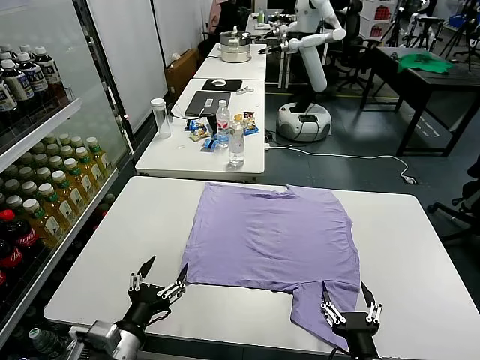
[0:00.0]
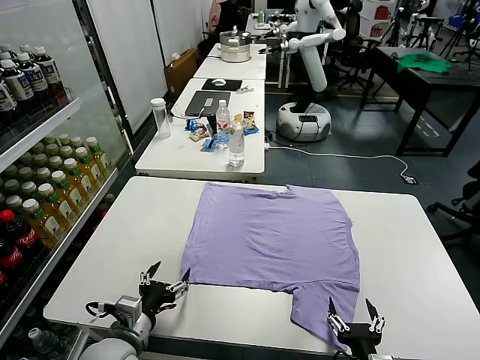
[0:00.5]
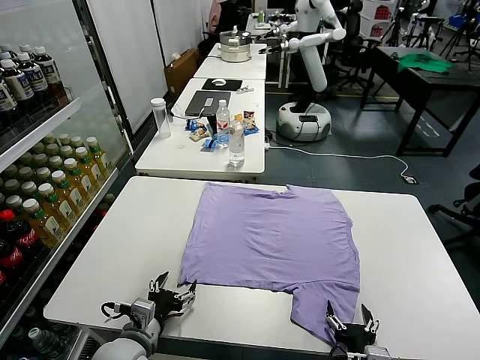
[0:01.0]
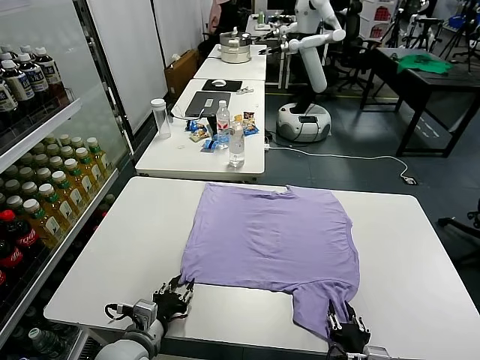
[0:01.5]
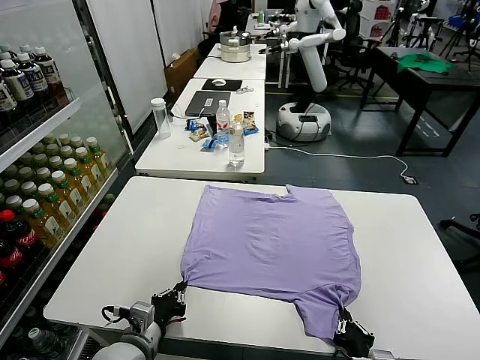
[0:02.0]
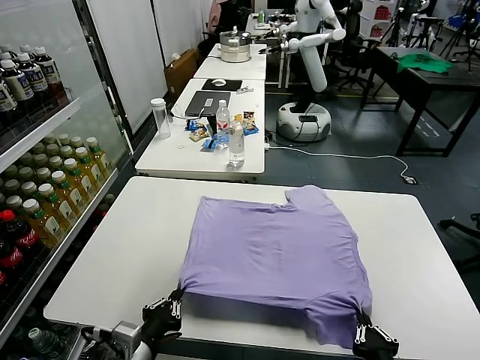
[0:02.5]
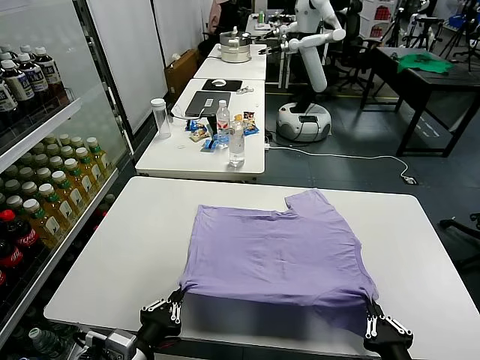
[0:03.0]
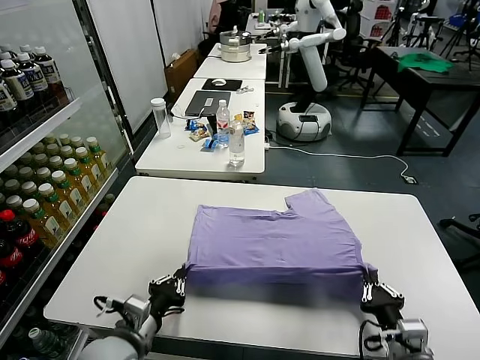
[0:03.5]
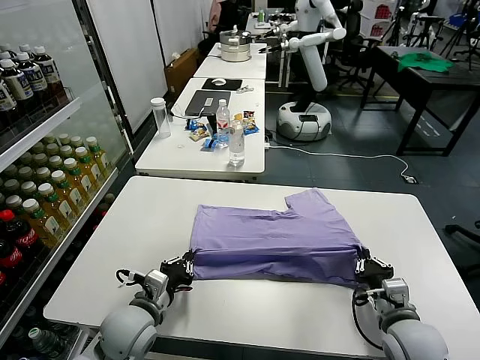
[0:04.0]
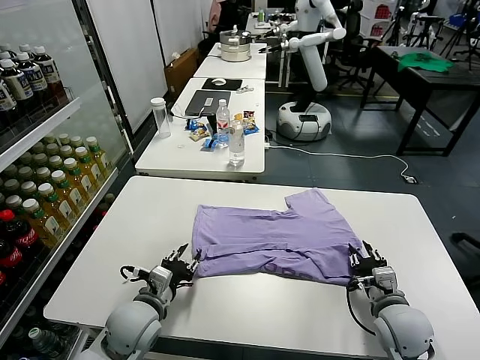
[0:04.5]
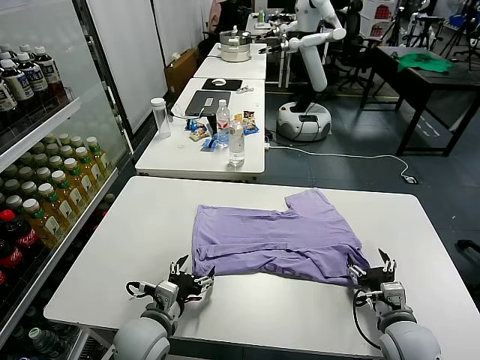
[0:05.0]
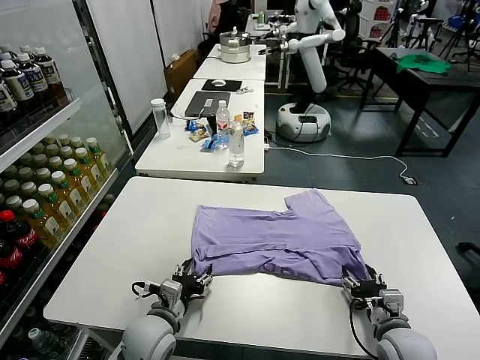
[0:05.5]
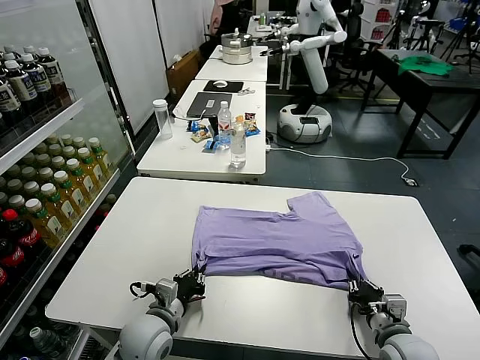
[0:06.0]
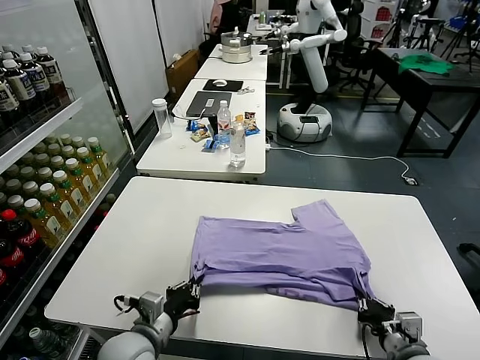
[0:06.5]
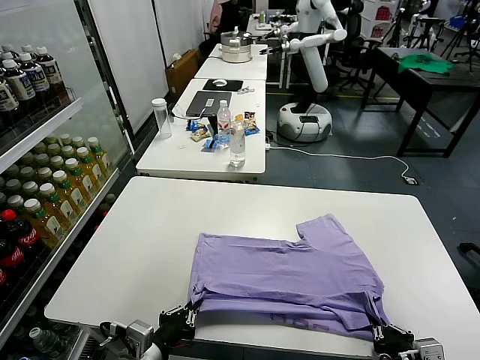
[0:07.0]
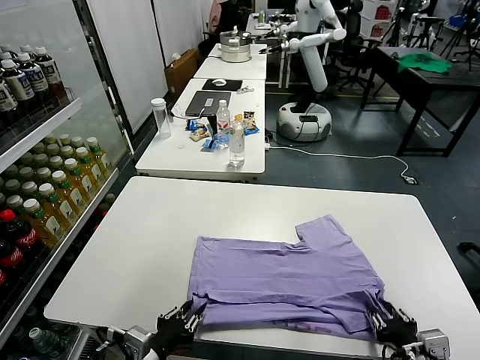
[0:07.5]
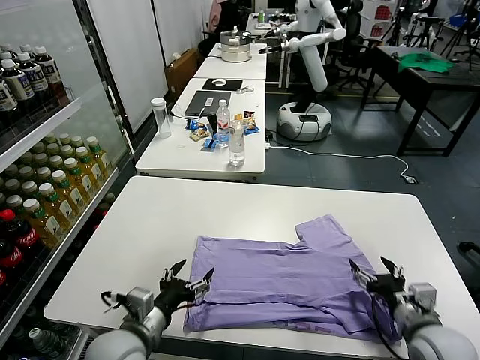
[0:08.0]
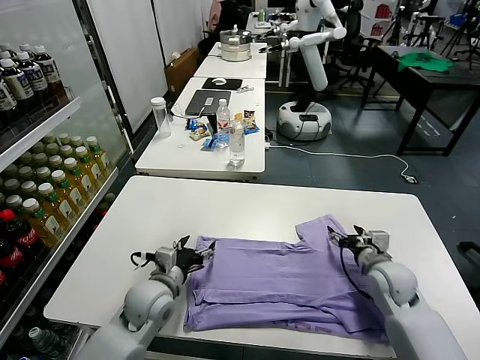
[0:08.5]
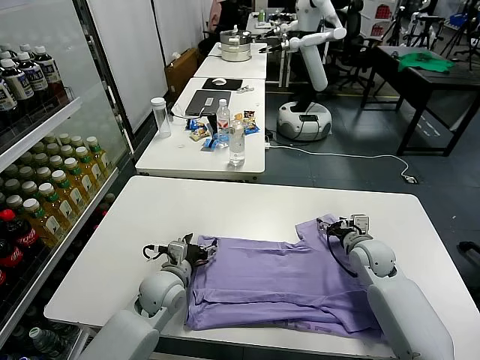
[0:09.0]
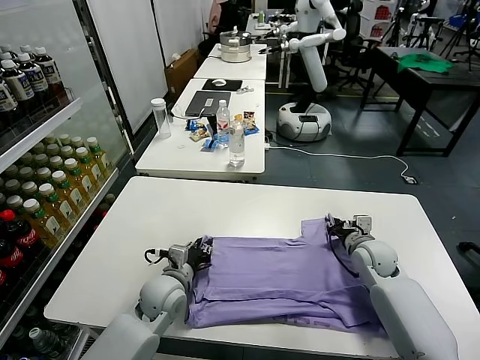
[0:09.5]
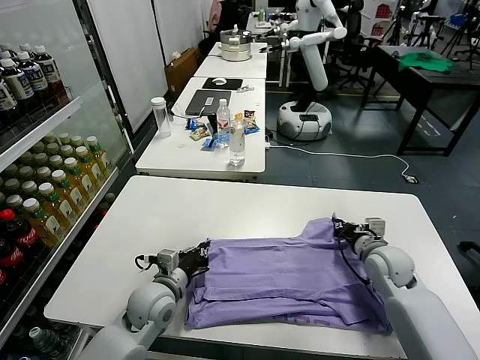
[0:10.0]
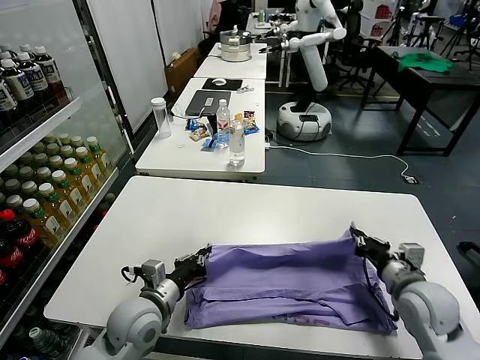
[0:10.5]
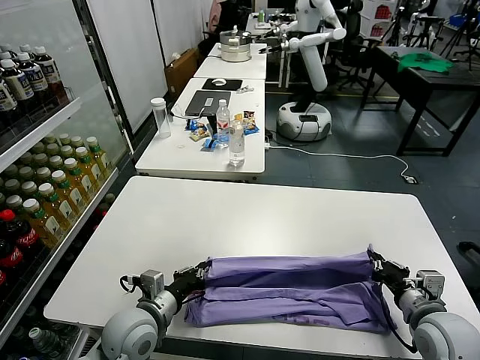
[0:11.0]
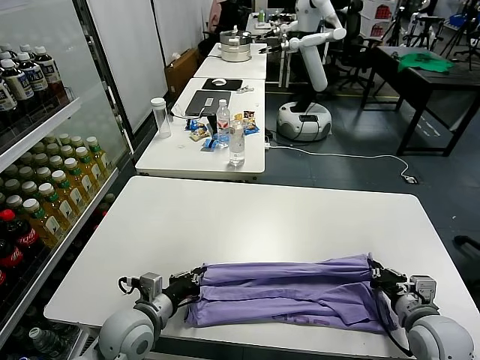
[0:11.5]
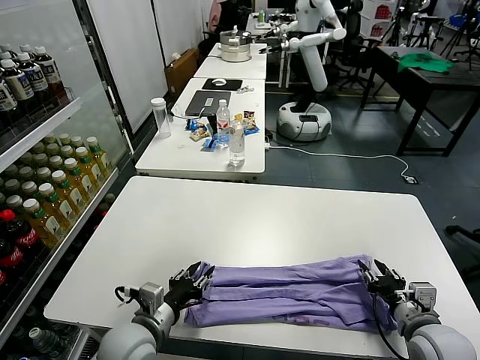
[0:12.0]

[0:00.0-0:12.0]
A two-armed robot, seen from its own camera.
Task of the whole recording: fold and organize the clothes.
Step, 0:00.0 to 0:01.5: use both grippers simultaneously to clamp the lower edge of the clothing fabric.
Step, 0:02.0 to 0:04.5: use both grippers to drag the lower edge of the fabric forward and fold it over the upper edge.
Step, 0:05.0 to 0:07.5: Drag the clothes downward with both gripper.
Step, 0:08.0 to 0:09.5: use both grippers simultaneously to clamp the upper edge of the clothing fabric.
0:02.0 to 0:04.0: The left gripper moves forward, about 5 cm; the right gripper goes some 15 cm forward and to the right.
0:04.0 to 0:06.0: The right gripper moves downward, some 5 cm, and opens and closes again. Meanwhile the left gripper opens, then closes once more.
0:06.0 to 0:08.0: Both grippers move upward, approximately 5 cm. The right gripper travels backward and back again, about 10 cm each way, and opens; the left gripper opens.
0:08.0 to 0:10.0: Both grippers travel together forward, some 10 cm. The left gripper closes. Meanwhile the right gripper closes up.
0:10.0 to 0:12.0: The right gripper travels backward by roughly 15 cm, and opens its fingers. The left gripper travels backward by approximately 10 cm, and opens.

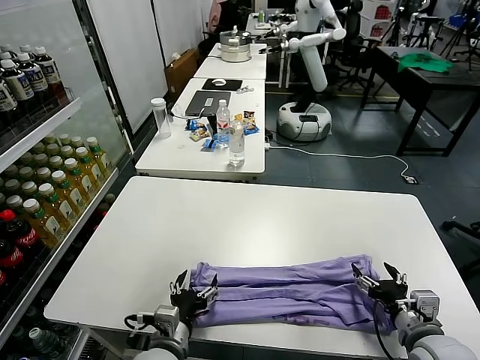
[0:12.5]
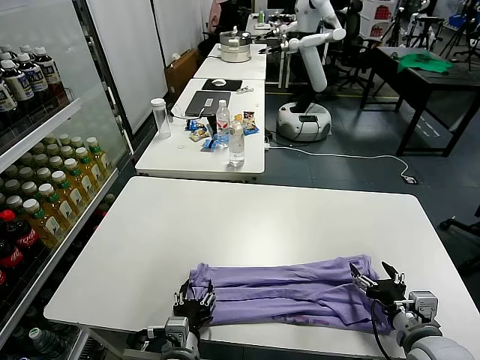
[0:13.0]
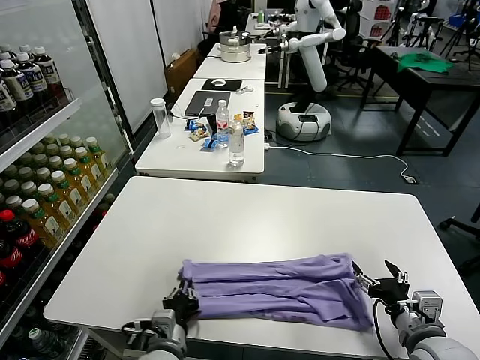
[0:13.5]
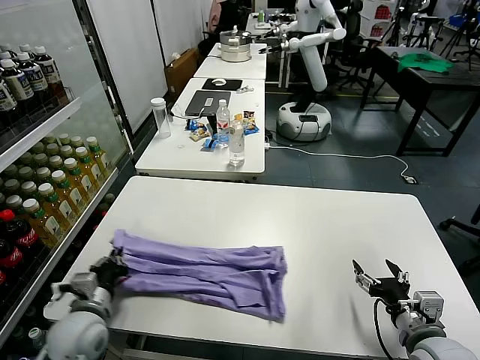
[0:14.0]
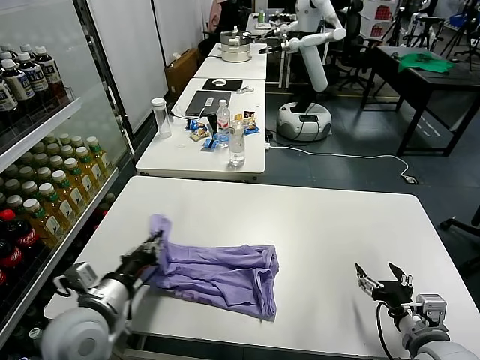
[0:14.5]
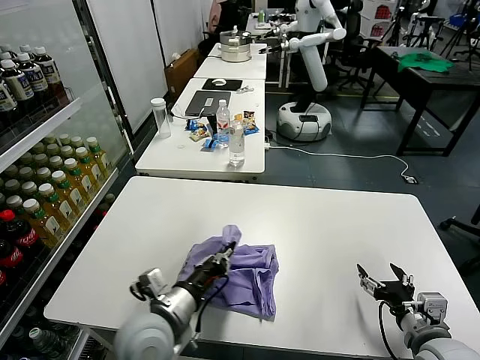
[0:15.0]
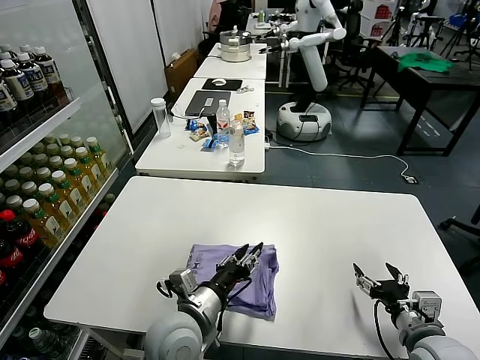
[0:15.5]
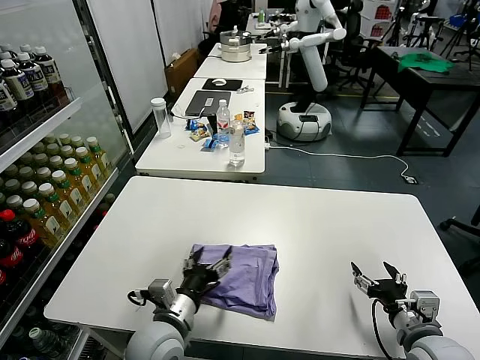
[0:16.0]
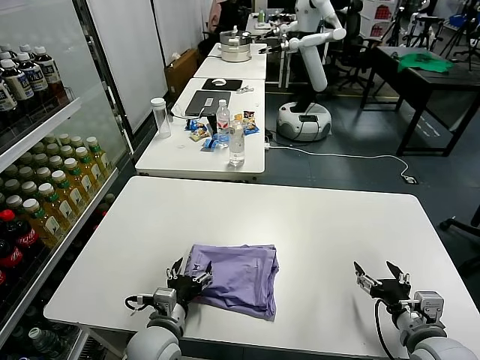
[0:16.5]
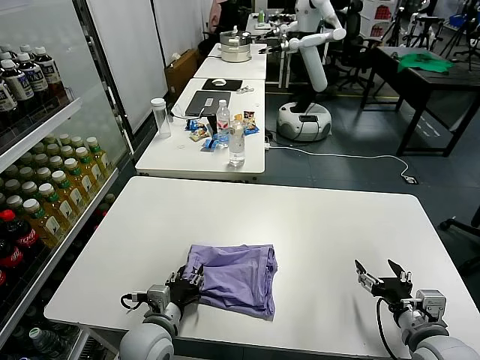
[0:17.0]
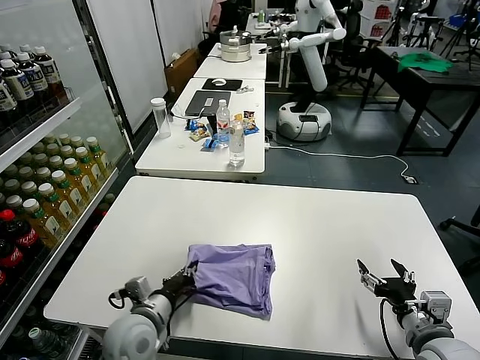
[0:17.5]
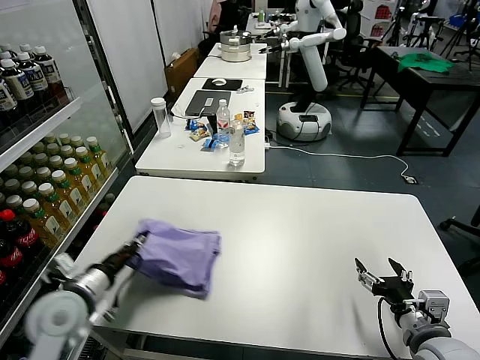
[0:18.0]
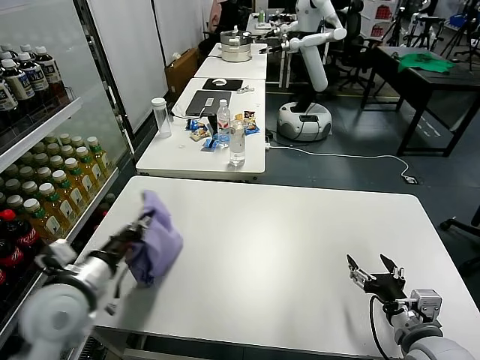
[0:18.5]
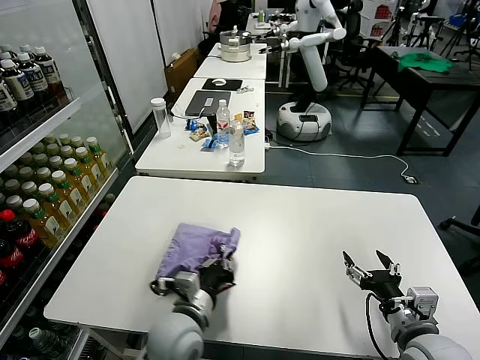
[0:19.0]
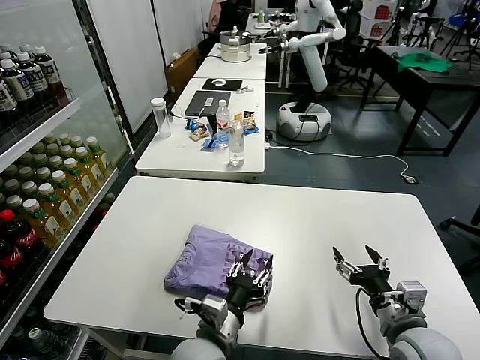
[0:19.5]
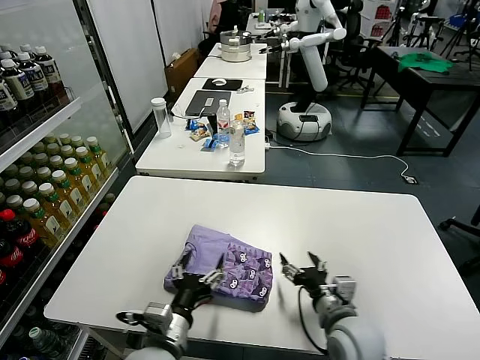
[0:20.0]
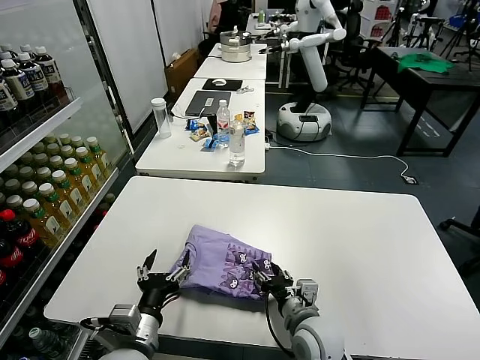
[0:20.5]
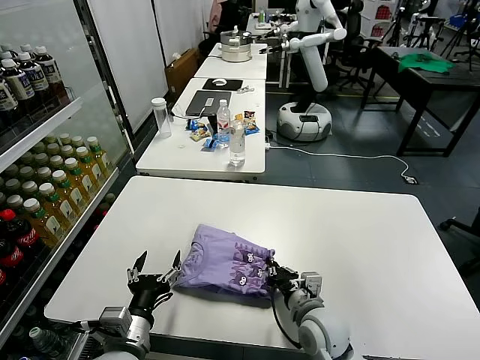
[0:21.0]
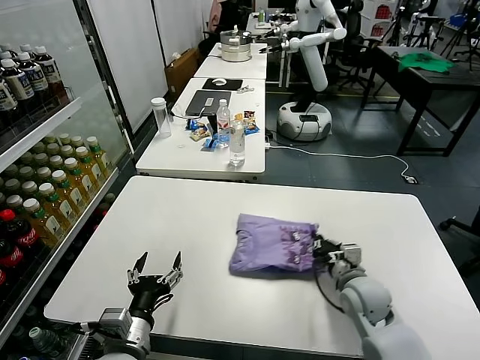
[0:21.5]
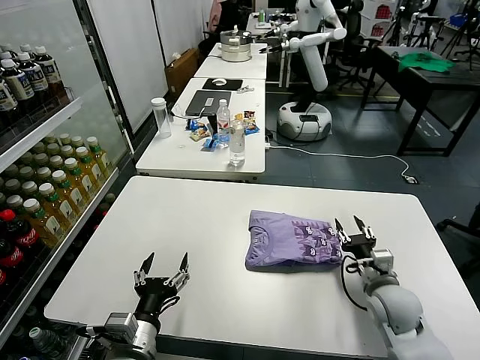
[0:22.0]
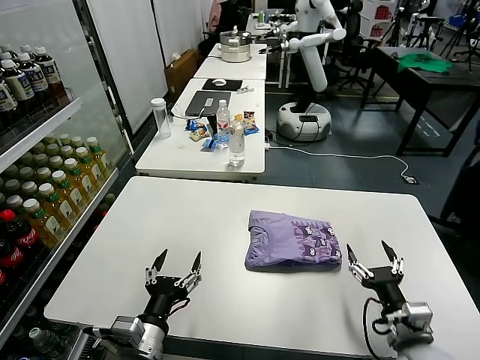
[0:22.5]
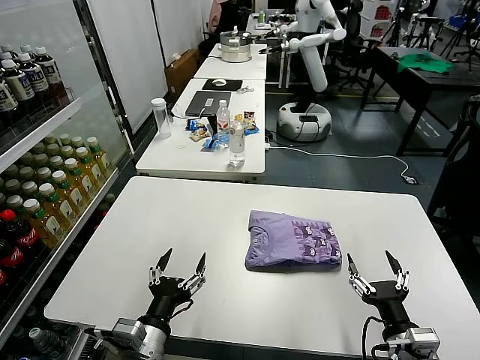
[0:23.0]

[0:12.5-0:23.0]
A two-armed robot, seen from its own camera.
Task of the whole recording: fold and organize the clothes.
Step, 0:14.0 to 0:15.5: use the left gripper to drag the left edge of the fabric to the left and folds it over the right edge.
Step, 0:16.0 to 0:19.5: Flip the folded clothes over with left gripper.
Step, 0:20.0 to 0:21.5: Drag the clothes to the center of the table.
0:12.5 to 0:14.5: The left gripper heads to the left and upward, covering approximately 15 cm, and closes up.
0:14.5 to 0:16.5: The left gripper is displaced downward and to the right by some 15 cm, and opens up.
0:16.5 to 0:19.0: The left gripper travels upward by approximately 5 cm, travels to the left and back again, roughly 15 cm each way, and closes up.
0:19.0 to 0:21.0: The right gripper travels to the left, downward and forward by roughly 20 cm, and closes. Meanwhile the left gripper shifts roughly 10 cm to the left and backward, and opens.
0:21.0 to 0:23.0: The right gripper moves to the right and backward, roughly 20 cm, and opens its fingers.

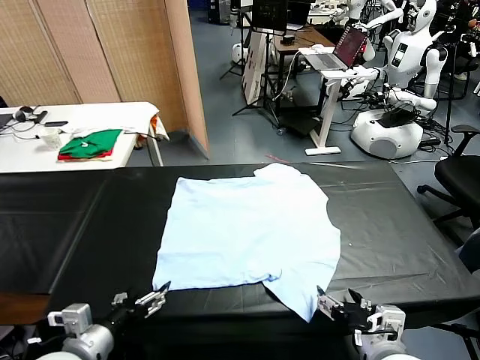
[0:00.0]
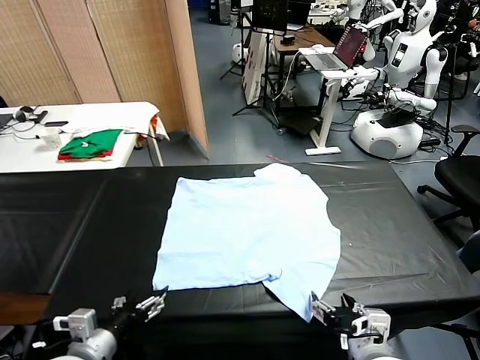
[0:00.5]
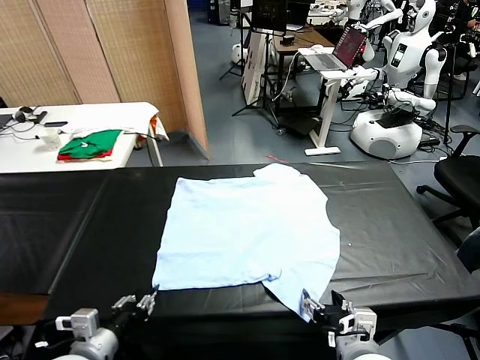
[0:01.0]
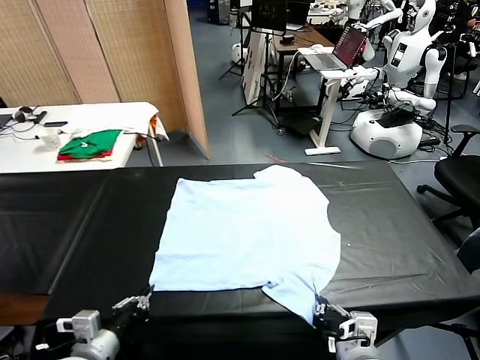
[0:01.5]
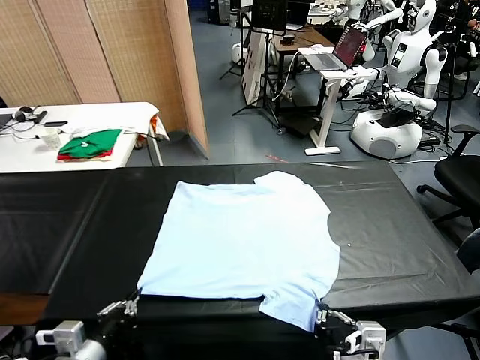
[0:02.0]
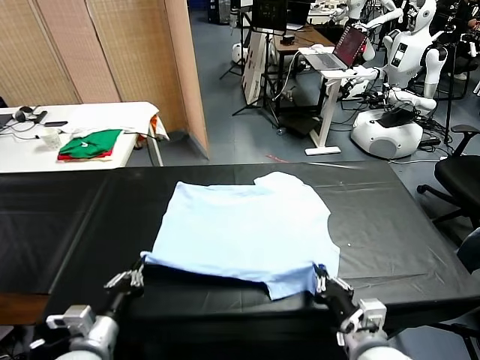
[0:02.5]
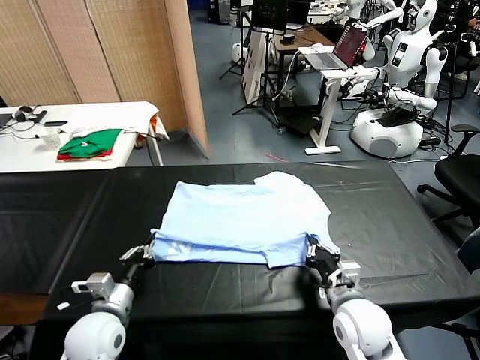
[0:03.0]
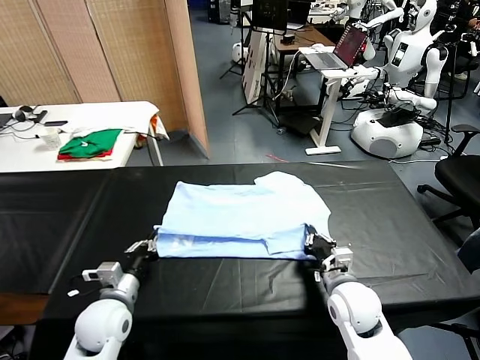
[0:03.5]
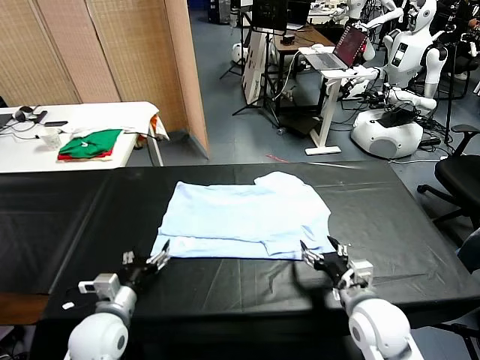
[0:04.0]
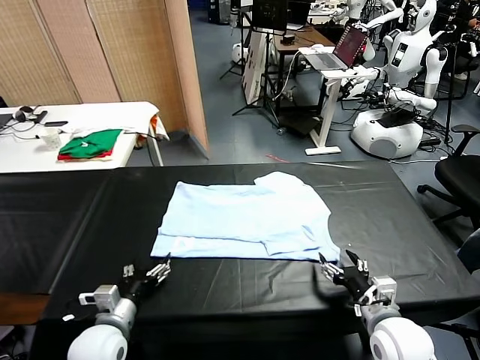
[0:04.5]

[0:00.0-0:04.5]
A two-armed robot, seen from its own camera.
Task of the whole recording: fold and organize the clothes.
Step, 0:00.0 to 0:01.0: use both grippers simultaneously to clamp the lower edge of the clothing fabric.
Step, 0:01.5 to 0:03.5: use both grippers to drag the lower edge of the fabric forward and fold it over the upper edge.
0:02.0 to 0:04.5: The right gripper travels forward, to the right and downward by about 10 cm, and opens up. Meanwhile the left gripper travels forward and downward by approximately 10 cm, and opens its fingers.
